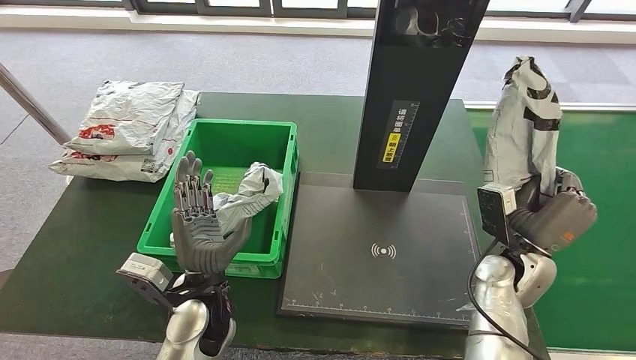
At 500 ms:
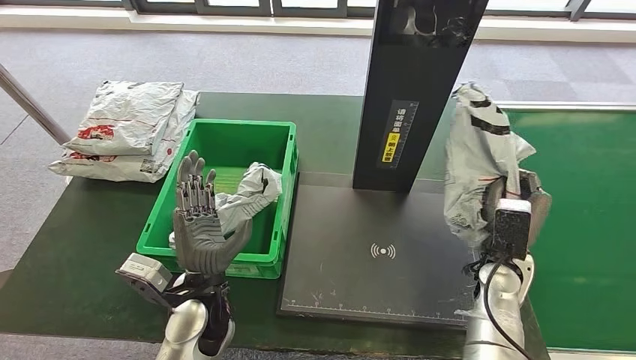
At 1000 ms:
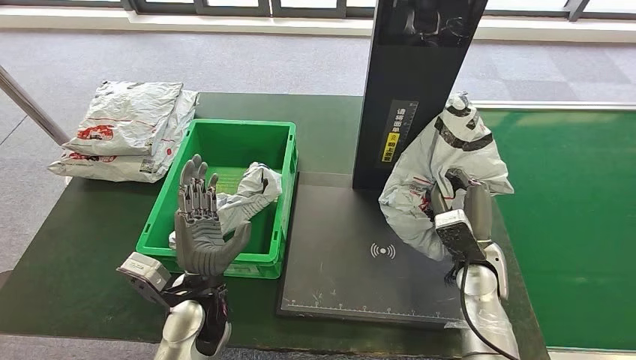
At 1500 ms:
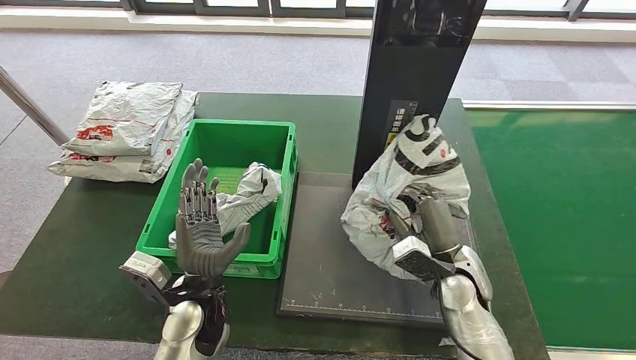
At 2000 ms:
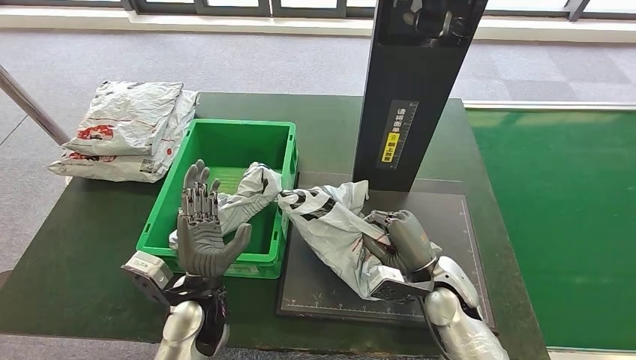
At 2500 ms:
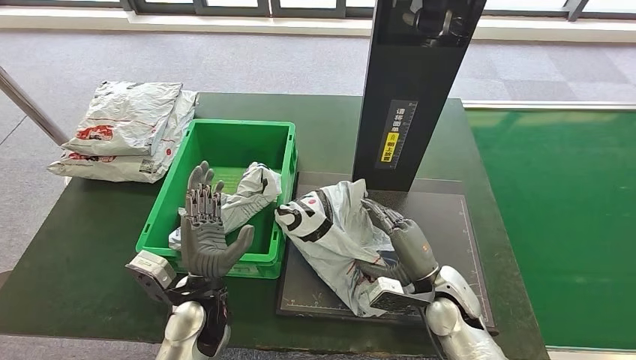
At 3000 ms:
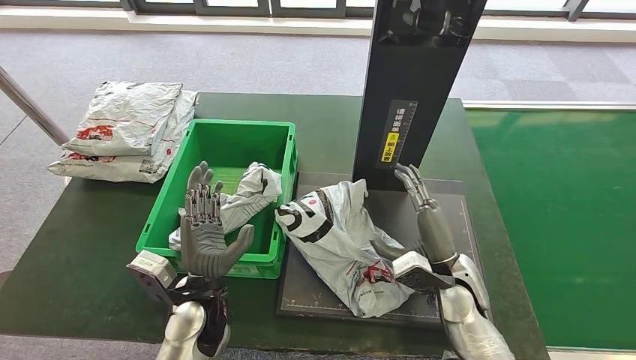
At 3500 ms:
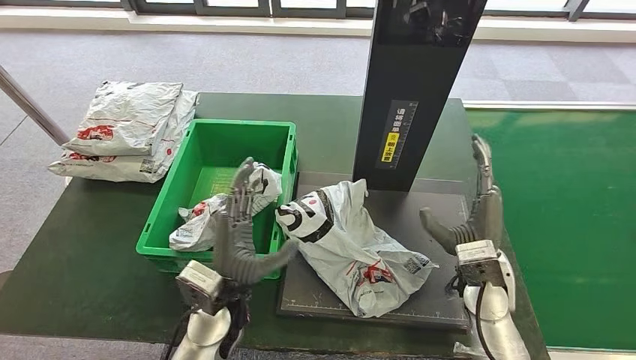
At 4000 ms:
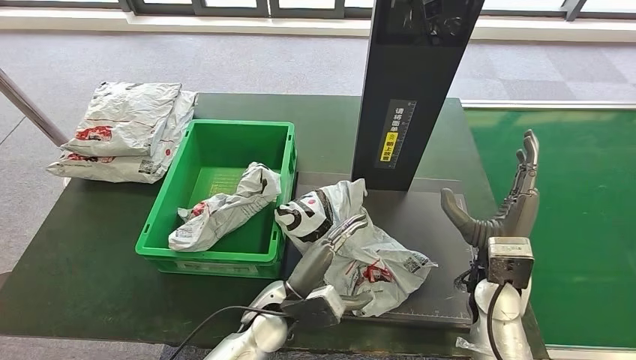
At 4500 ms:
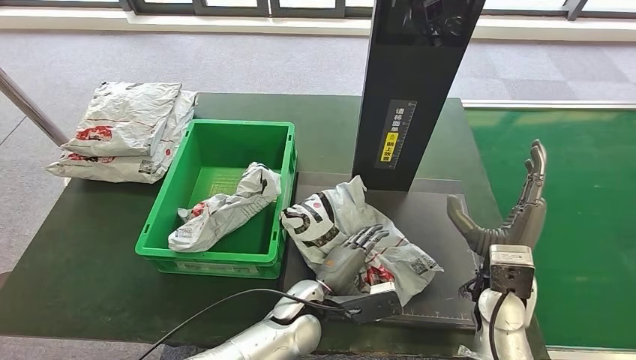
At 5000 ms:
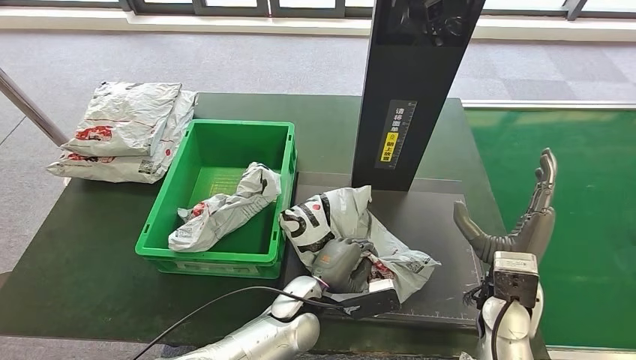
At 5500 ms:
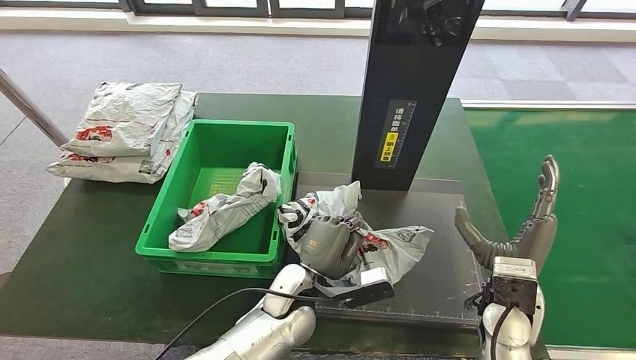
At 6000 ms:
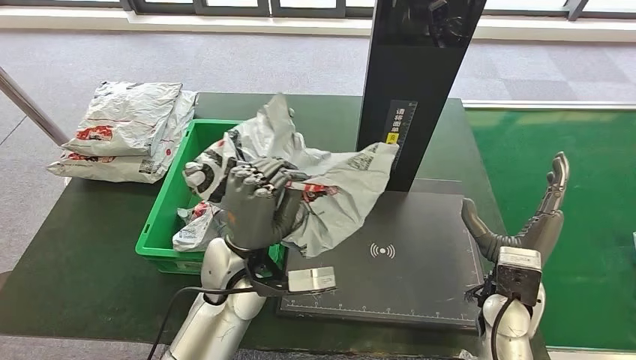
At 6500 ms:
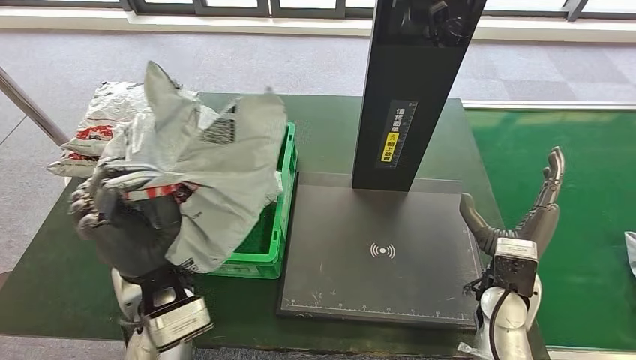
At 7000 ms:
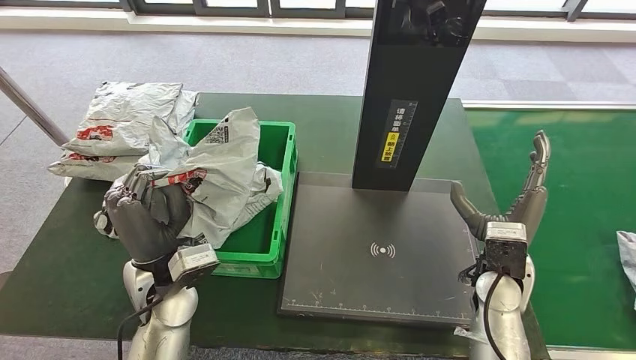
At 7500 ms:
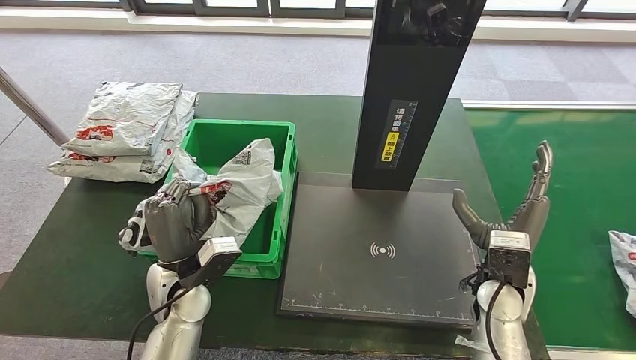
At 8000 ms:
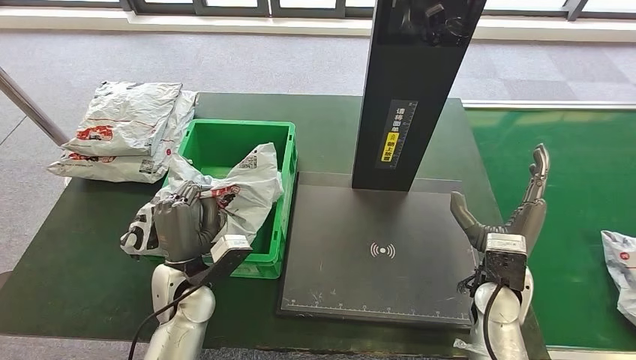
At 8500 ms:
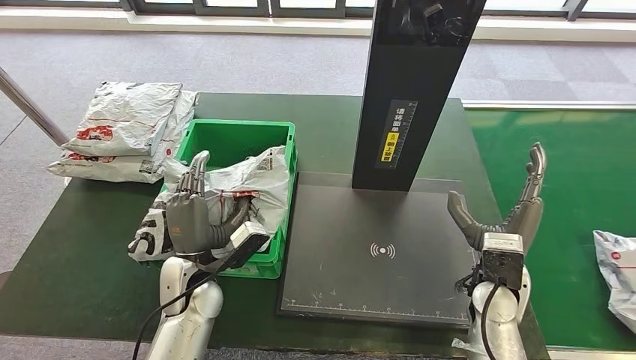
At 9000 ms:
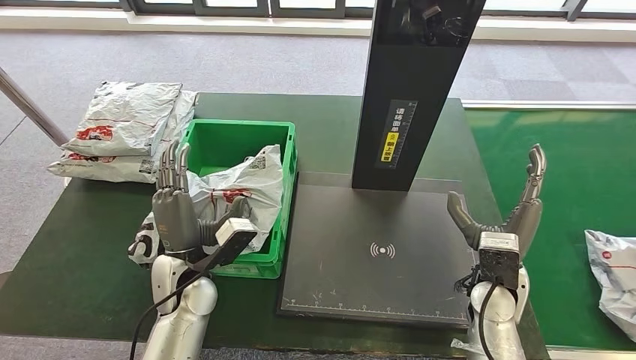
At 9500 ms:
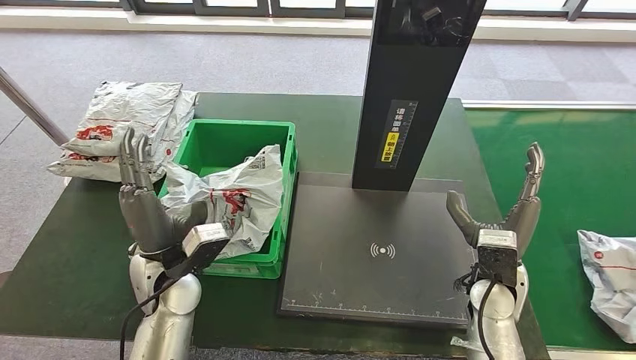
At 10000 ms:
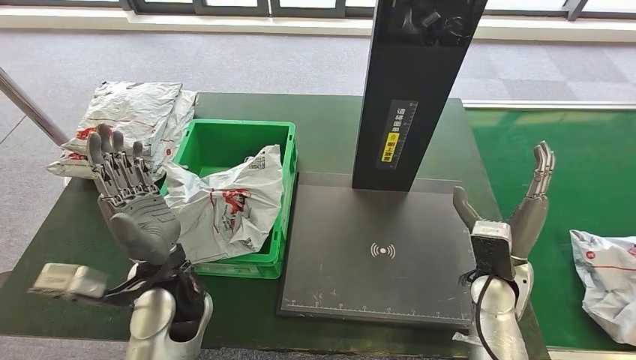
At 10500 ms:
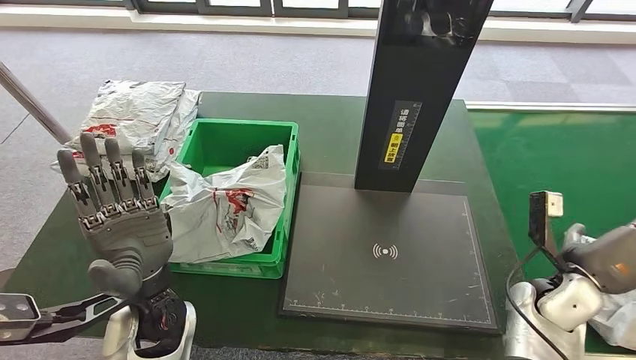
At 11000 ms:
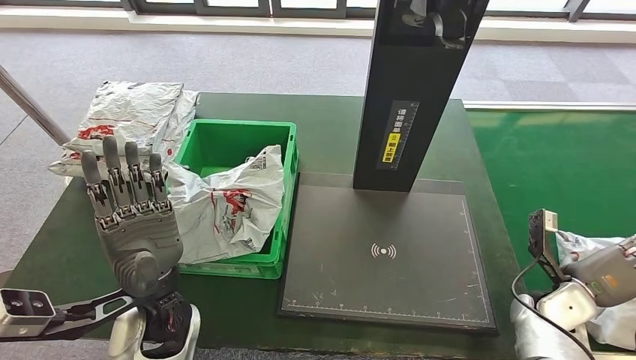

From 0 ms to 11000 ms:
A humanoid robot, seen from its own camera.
Step, from 500 ms to 2500 ms: Place the parcel onto the inbound machine.
Step, from 3000 ms to 6000 ms: Pick up the parcel from the inbound machine.
Step, from 6500 ms to 9500 ms: Place the parcel into the delivery box.
From 0 ms to 2000 ms: The right hand travels to the left by roughly 10 cm.
From 2000 ms to 3500 ms: The right hand heads upward, covering some 5 cm.
From 3500 ms to 5500 ms: The left hand shifts approximately 10 cm to the right.
From 5500 ms to 7500 ms: The left hand goes roughly 20 cm to the left.
From 7500 ms to 9000 ms: The hands make only small movements.

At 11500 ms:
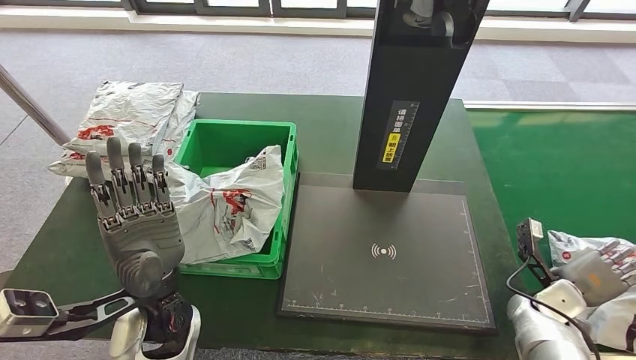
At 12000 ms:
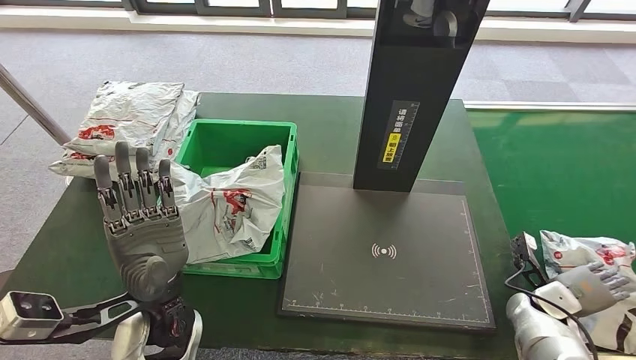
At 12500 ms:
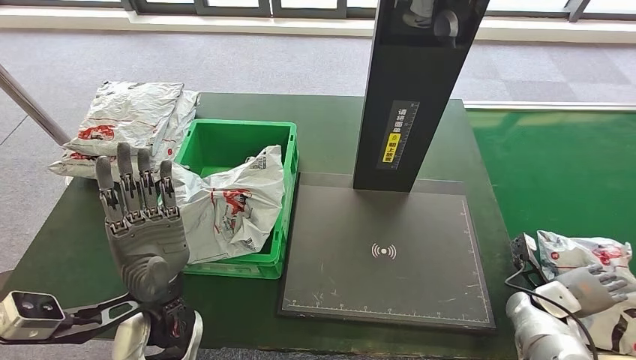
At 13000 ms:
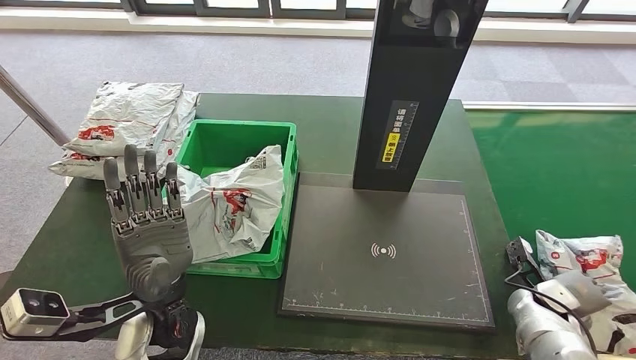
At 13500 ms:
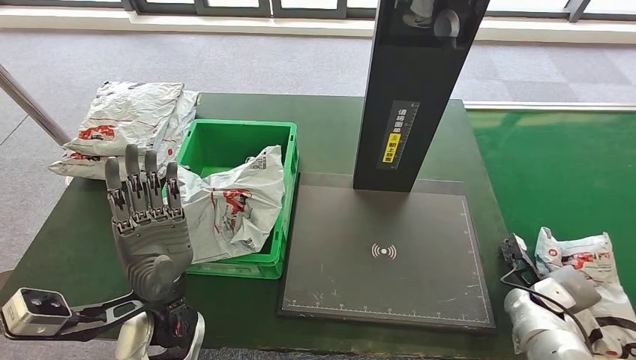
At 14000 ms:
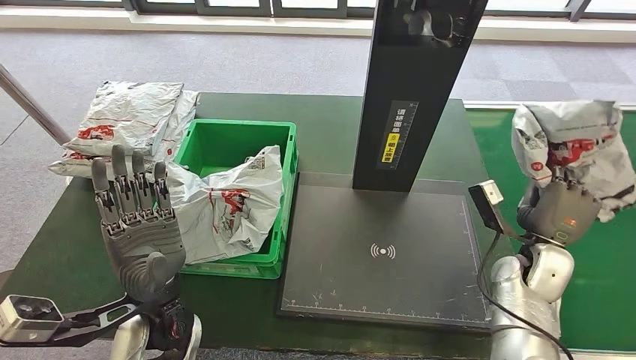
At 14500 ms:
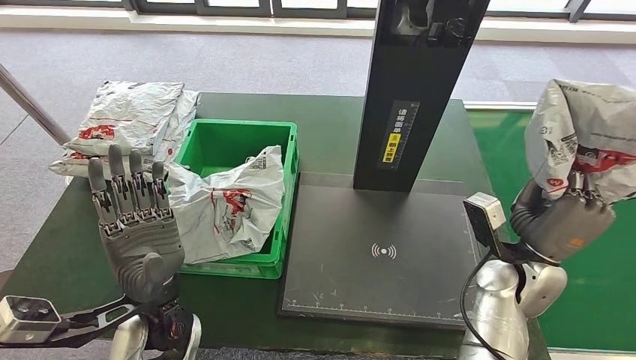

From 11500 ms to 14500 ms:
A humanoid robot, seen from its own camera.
Step, from 11500 ms to 14500 ms: Pick up the parcel from the conveyor belt.
